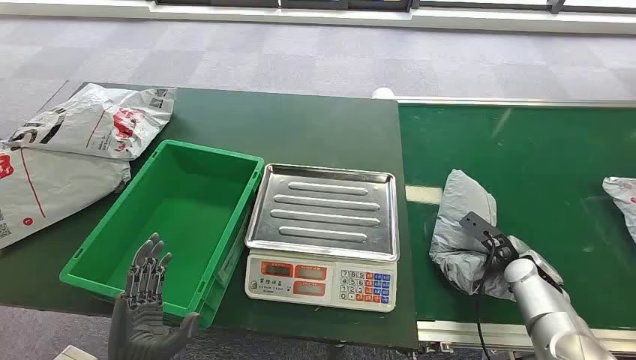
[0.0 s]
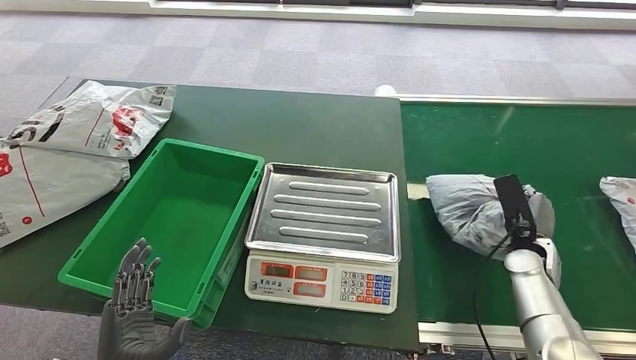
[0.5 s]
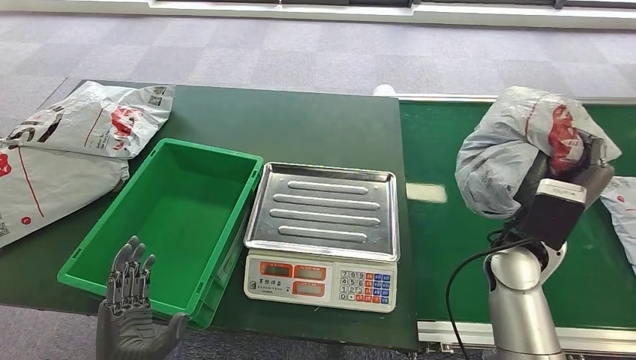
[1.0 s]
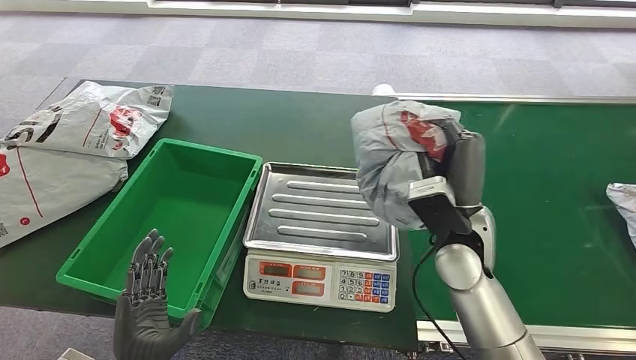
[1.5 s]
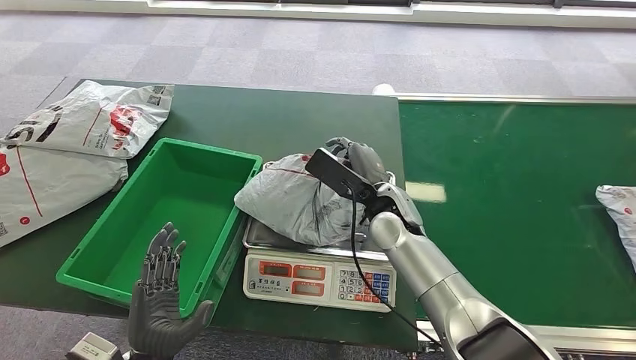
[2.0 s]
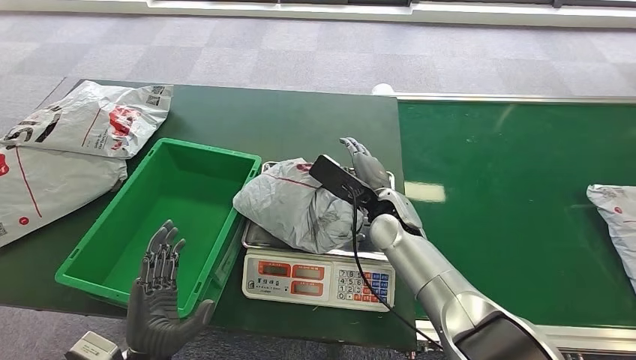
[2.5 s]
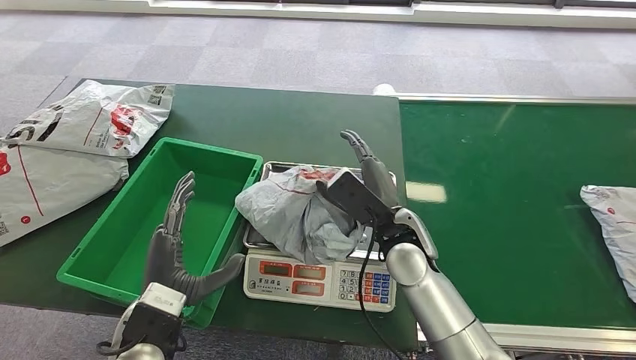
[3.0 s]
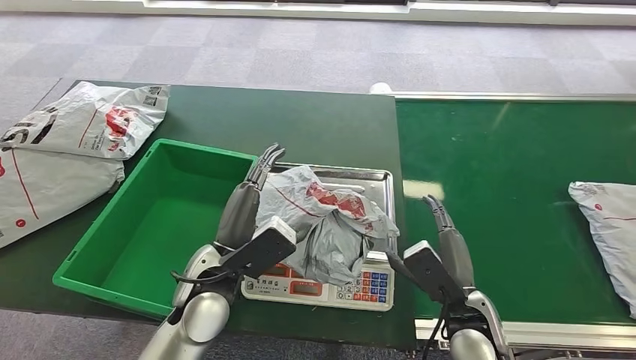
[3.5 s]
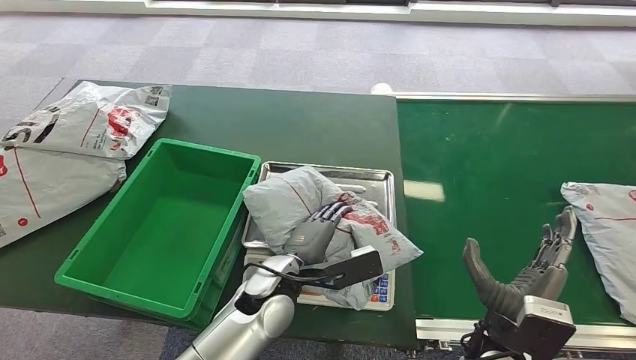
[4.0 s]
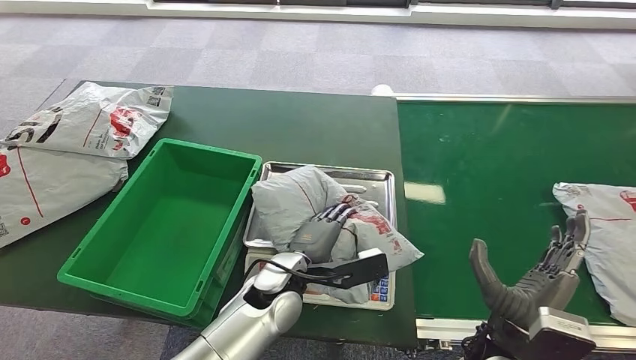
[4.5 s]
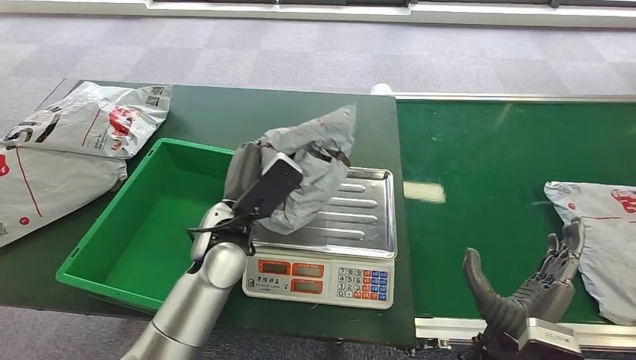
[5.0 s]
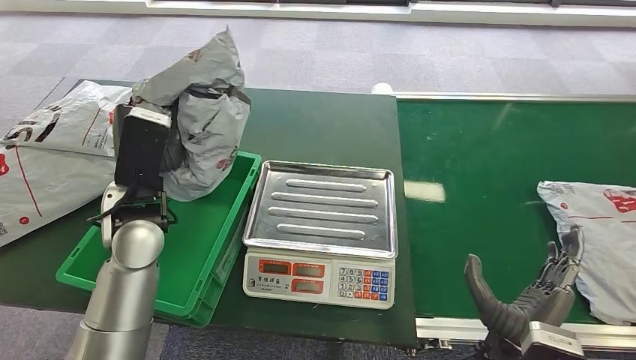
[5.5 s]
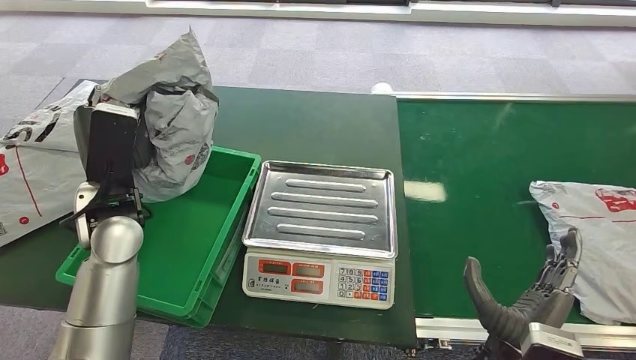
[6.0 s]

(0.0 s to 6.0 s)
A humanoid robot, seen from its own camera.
Step, 0.0 s - 0.5 s: Pick up the package from the conveyor belt.
Step, 1.0 s - 2.0 s: Place the package onto the inbound machine.
Step, 4.0 s - 5.0 s: Pick up the package from the inbound machine.
Step, 5.5 s - 6.0 s: Place the package into the parcel locker.
